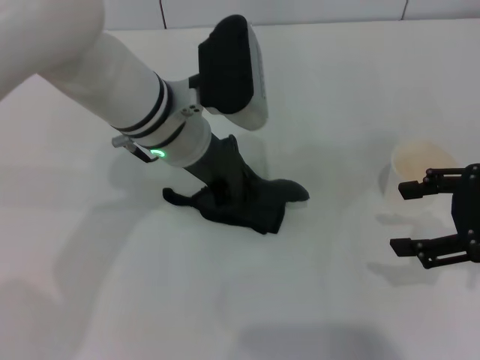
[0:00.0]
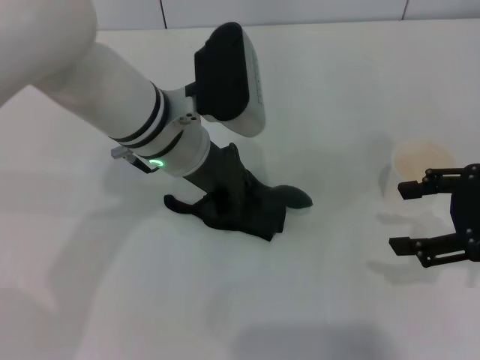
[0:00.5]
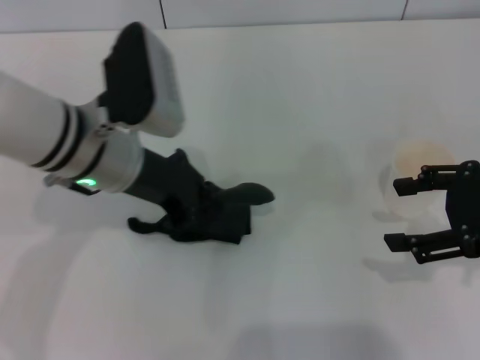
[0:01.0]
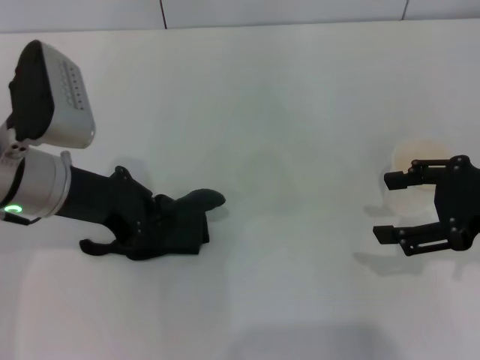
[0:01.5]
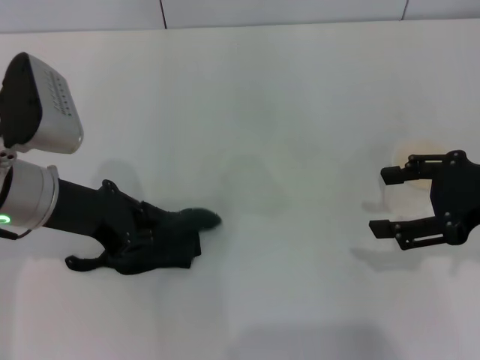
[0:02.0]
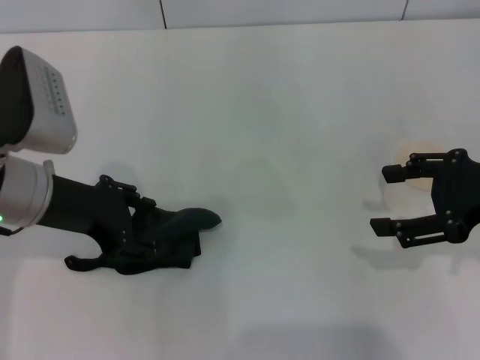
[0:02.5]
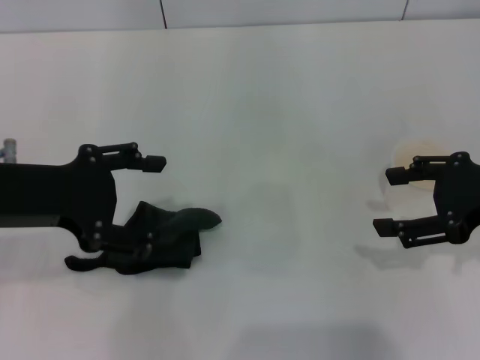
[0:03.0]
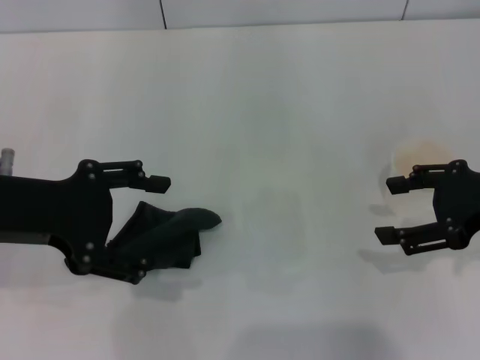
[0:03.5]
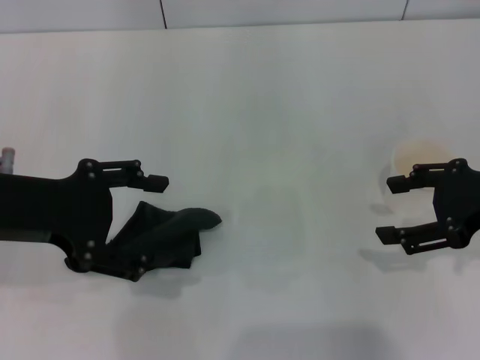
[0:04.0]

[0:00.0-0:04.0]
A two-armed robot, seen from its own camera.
Step, 0:02.0 to 0:02.5: Place the rag on the table with the left gripper.
0:00.0 to 0:02.0: The left gripper is displaced to the left by some 15 cm.
0:02.0 to 0:04.0: The left gripper heads upward, covering roughly 5 cm, and opens up.
